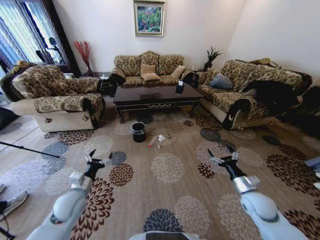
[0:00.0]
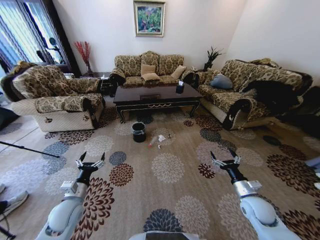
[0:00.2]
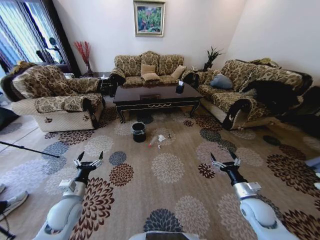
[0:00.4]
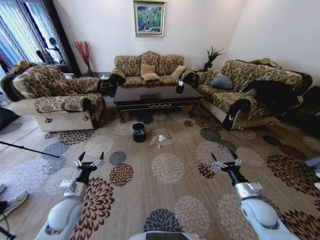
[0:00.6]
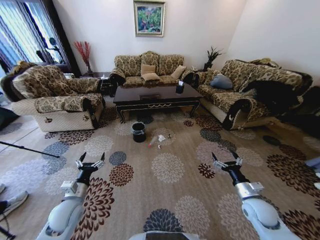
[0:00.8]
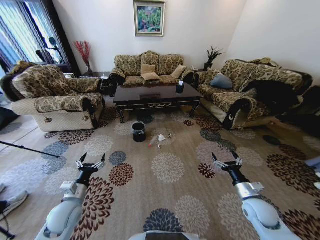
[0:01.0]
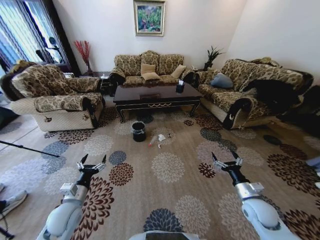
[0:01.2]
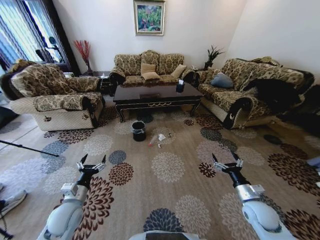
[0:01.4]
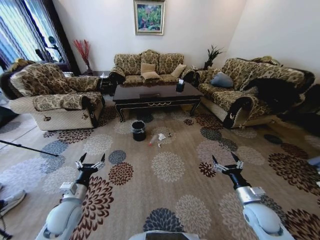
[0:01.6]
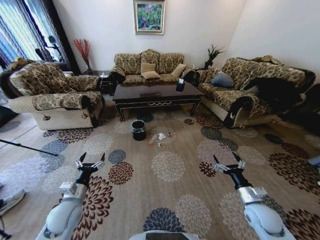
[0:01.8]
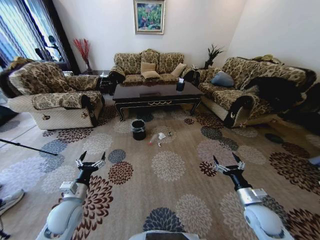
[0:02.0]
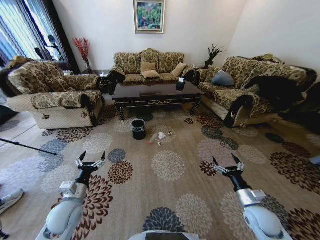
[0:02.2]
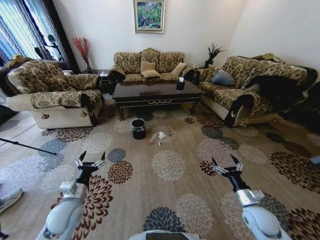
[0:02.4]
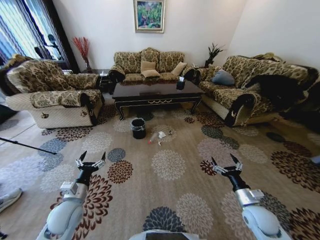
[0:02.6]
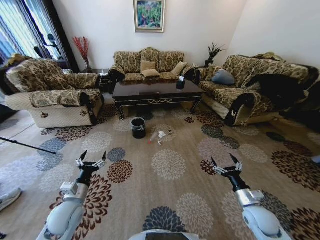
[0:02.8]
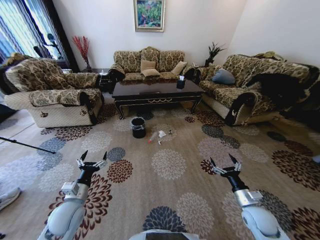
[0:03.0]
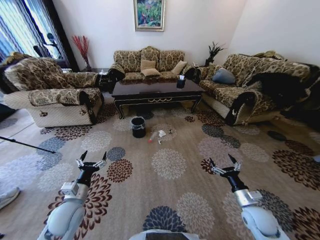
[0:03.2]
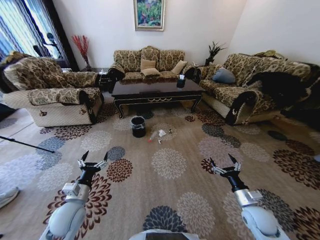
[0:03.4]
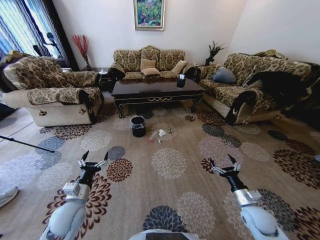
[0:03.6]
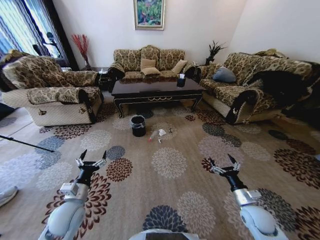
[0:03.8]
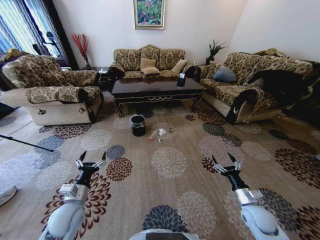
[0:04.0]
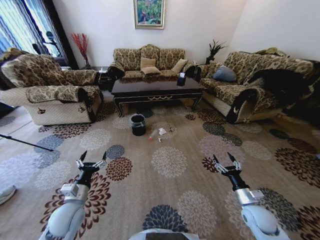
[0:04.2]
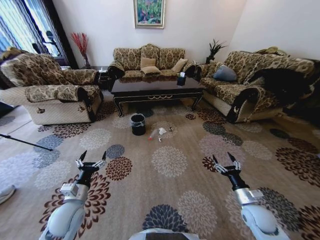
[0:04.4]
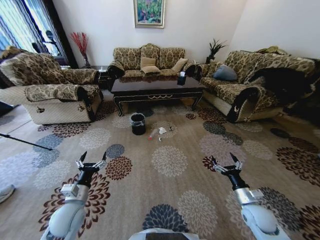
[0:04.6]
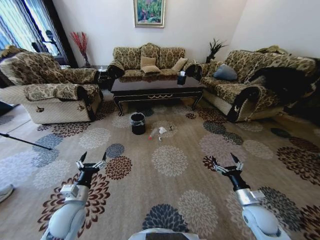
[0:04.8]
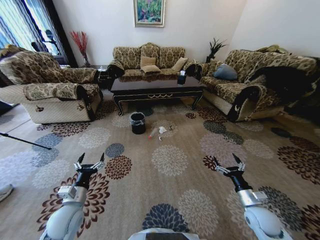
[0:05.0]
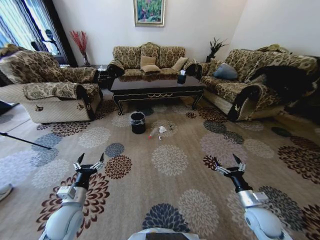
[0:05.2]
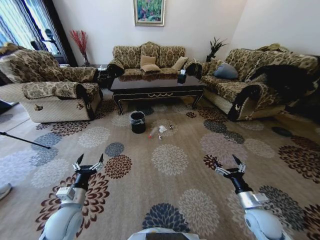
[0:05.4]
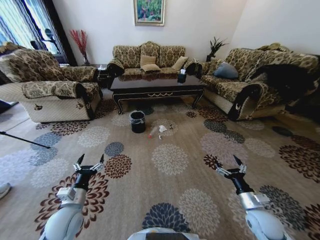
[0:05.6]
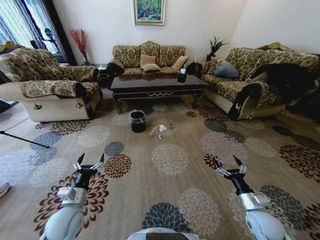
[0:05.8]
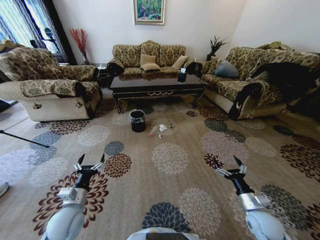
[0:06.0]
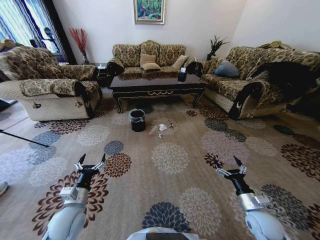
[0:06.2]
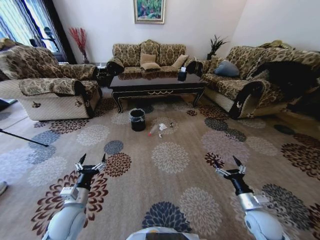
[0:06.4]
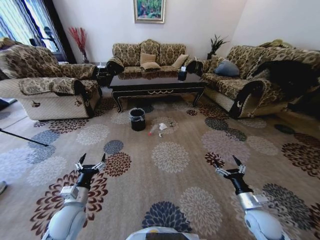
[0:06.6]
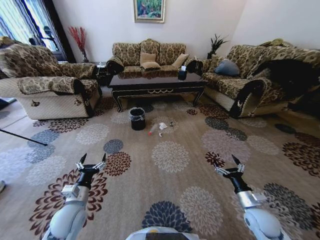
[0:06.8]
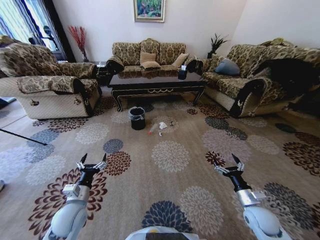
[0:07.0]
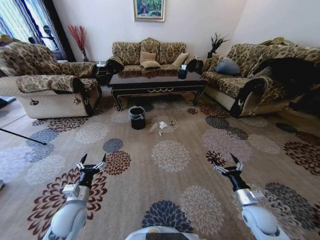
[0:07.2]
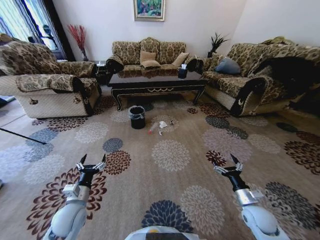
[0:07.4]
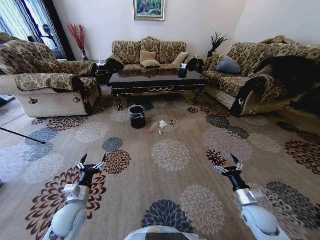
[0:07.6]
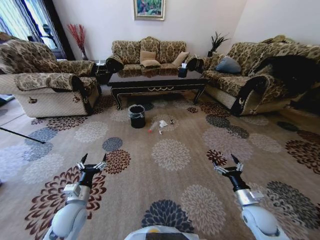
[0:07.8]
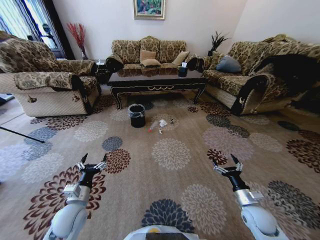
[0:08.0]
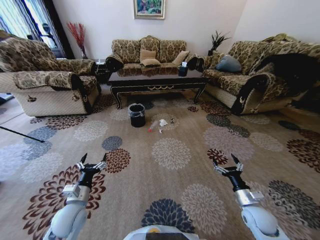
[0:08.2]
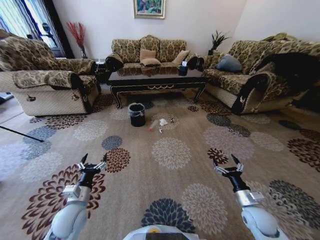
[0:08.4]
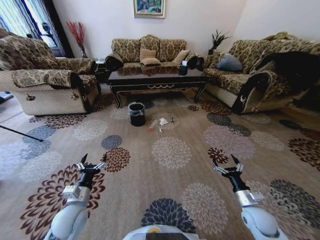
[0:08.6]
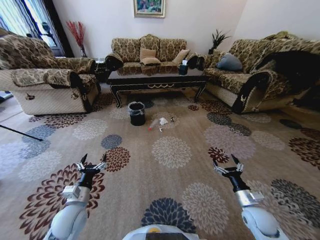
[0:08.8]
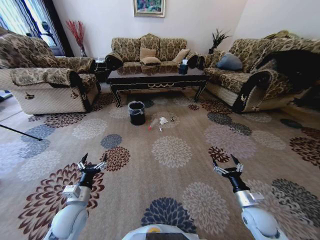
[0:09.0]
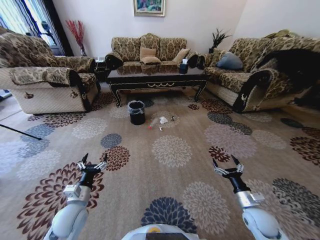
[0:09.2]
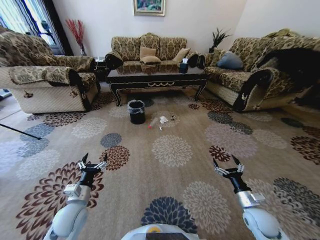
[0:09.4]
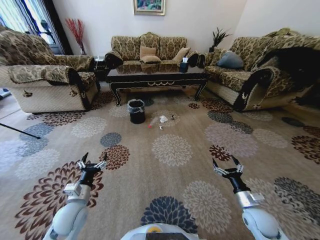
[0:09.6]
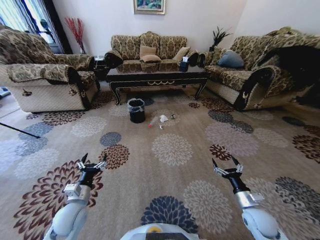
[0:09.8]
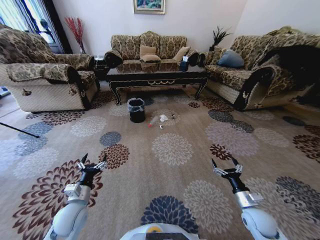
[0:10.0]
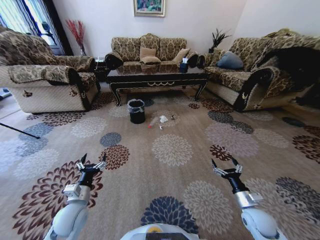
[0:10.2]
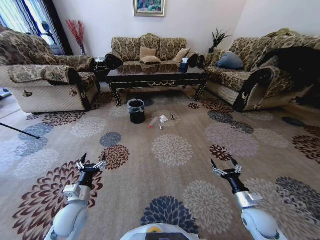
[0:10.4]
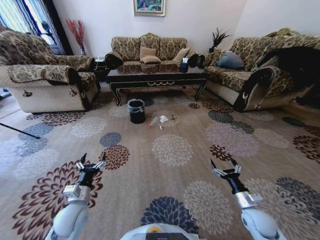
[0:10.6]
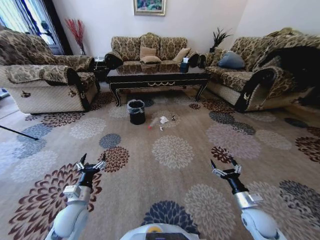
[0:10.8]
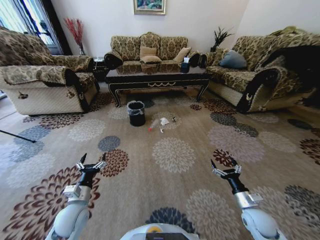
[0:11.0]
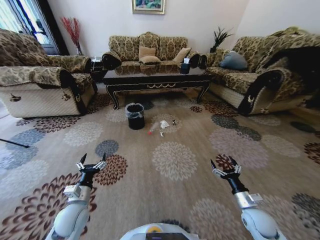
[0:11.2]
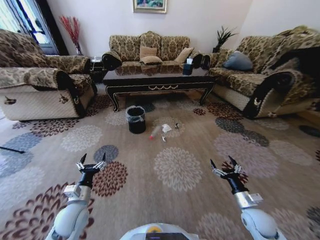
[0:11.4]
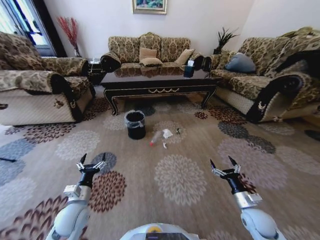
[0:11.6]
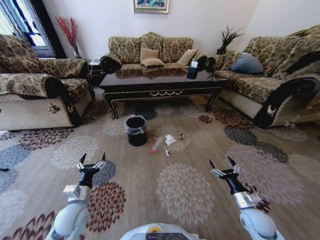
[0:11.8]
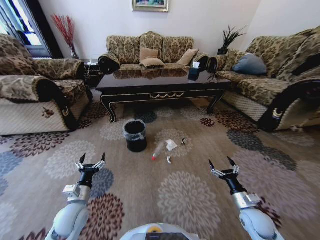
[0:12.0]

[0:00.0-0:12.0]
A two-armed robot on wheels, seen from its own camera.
Task of the whole recording: Move to the front of the table and pick up the trash from the floor, then place it into the trash bin.
0:09.0 to 0:10.4: Both grippers stay about where they are.

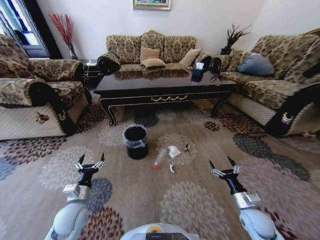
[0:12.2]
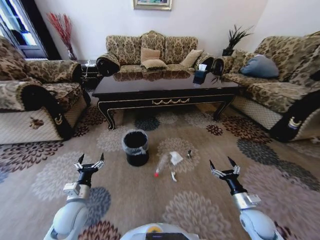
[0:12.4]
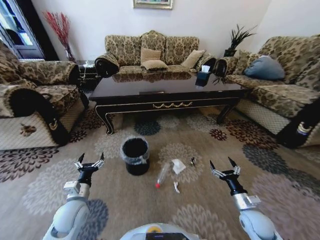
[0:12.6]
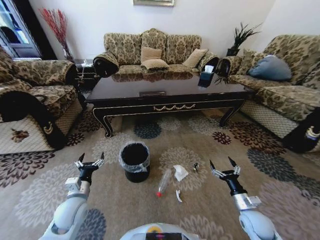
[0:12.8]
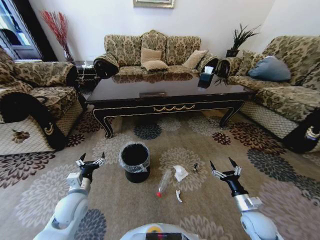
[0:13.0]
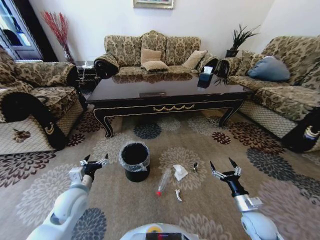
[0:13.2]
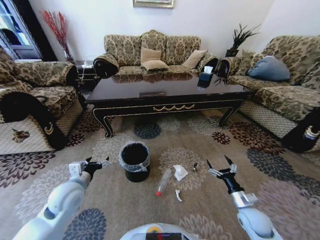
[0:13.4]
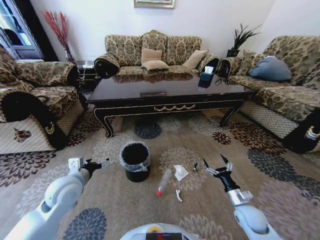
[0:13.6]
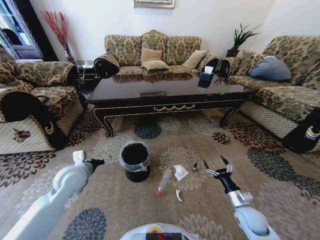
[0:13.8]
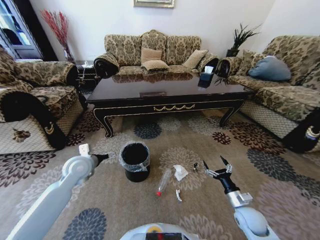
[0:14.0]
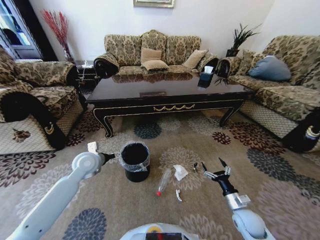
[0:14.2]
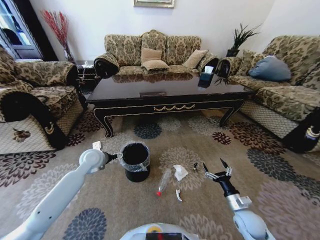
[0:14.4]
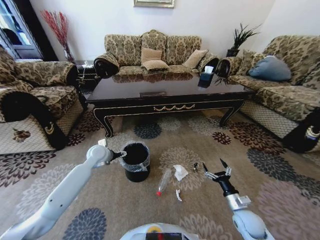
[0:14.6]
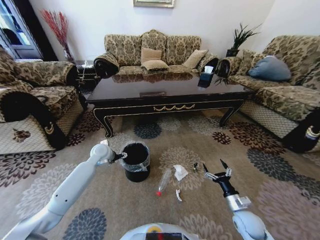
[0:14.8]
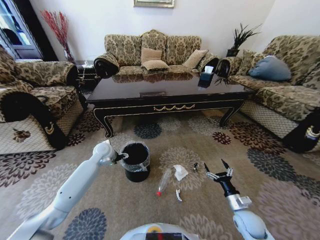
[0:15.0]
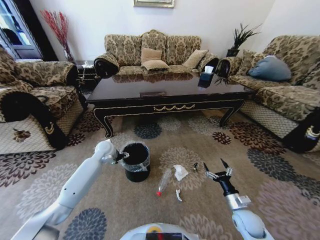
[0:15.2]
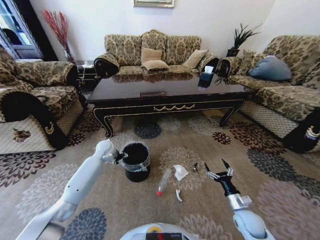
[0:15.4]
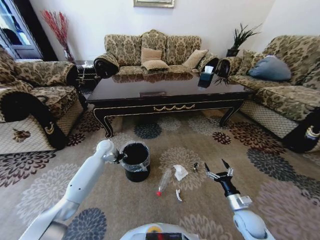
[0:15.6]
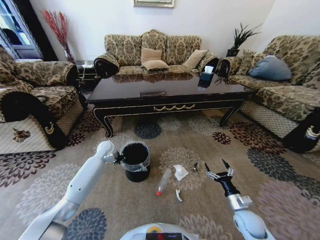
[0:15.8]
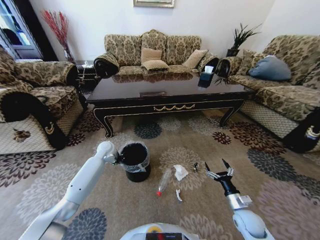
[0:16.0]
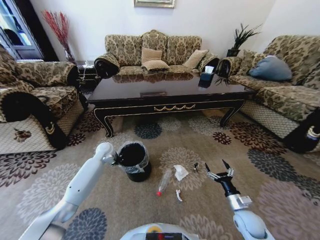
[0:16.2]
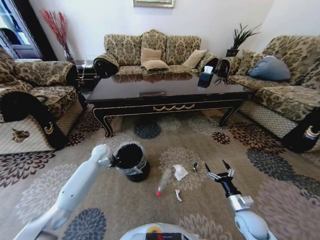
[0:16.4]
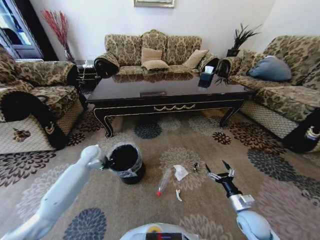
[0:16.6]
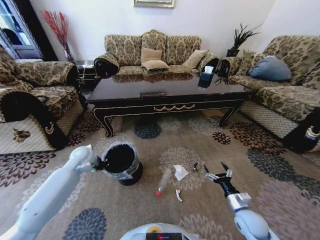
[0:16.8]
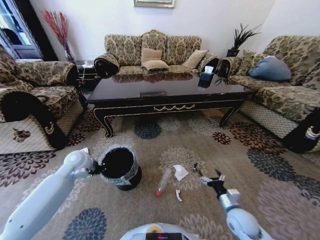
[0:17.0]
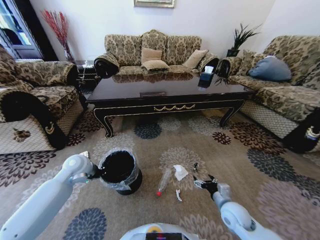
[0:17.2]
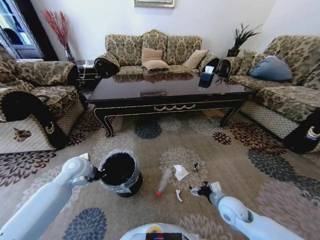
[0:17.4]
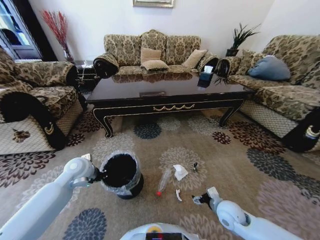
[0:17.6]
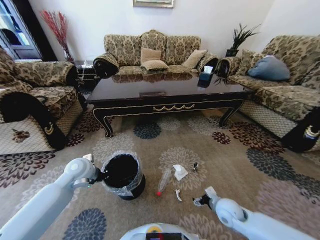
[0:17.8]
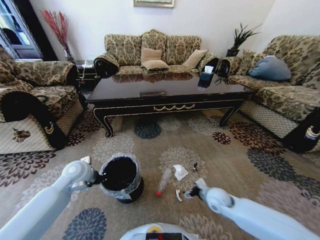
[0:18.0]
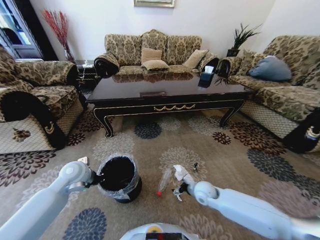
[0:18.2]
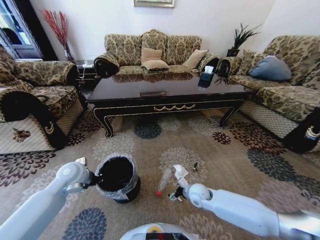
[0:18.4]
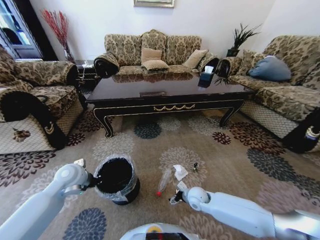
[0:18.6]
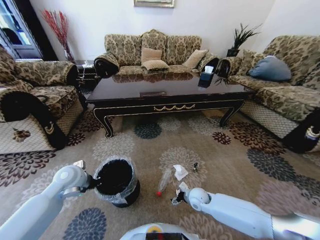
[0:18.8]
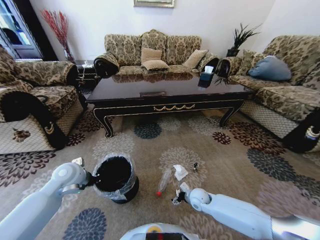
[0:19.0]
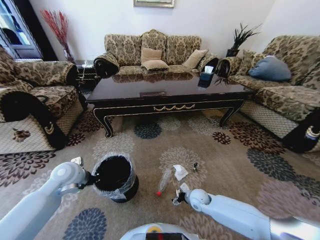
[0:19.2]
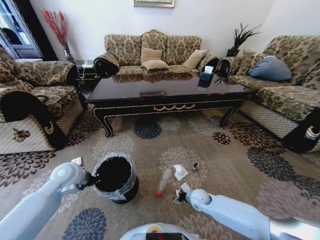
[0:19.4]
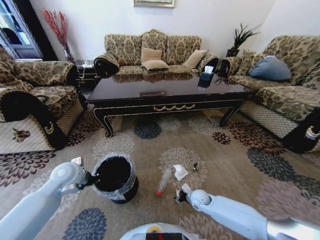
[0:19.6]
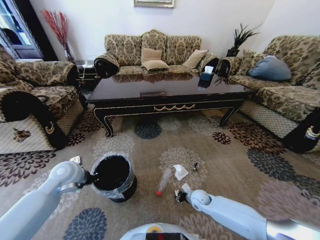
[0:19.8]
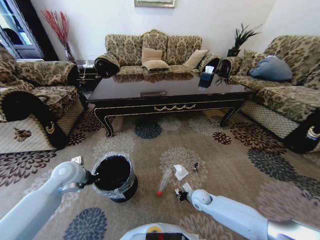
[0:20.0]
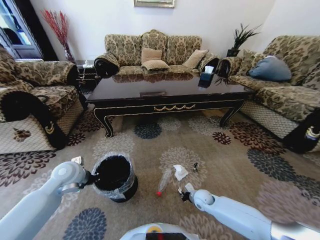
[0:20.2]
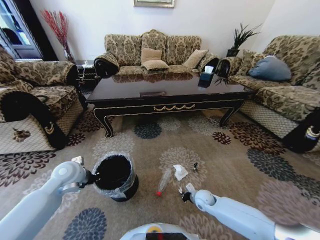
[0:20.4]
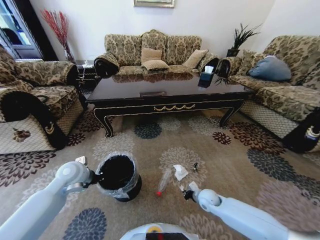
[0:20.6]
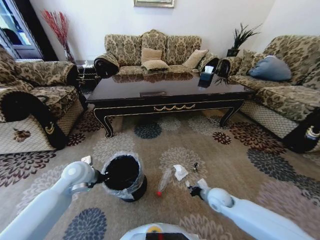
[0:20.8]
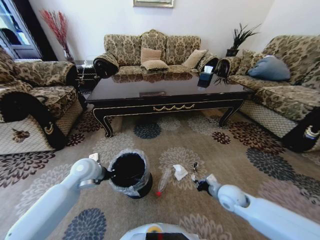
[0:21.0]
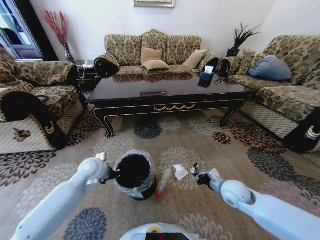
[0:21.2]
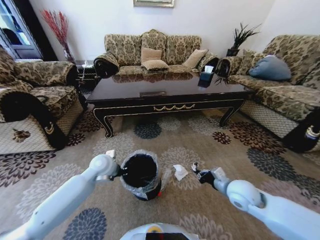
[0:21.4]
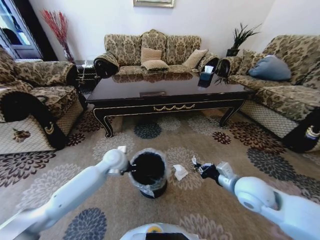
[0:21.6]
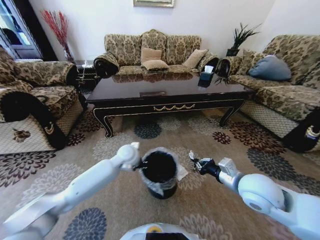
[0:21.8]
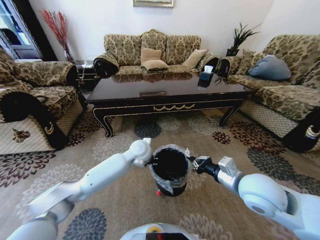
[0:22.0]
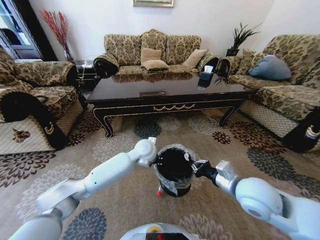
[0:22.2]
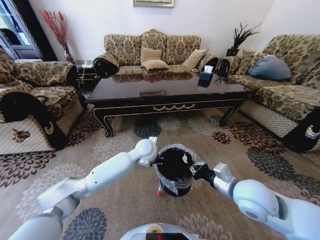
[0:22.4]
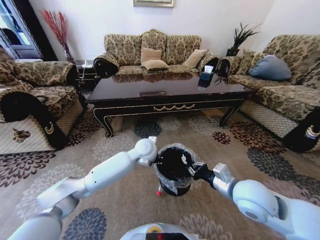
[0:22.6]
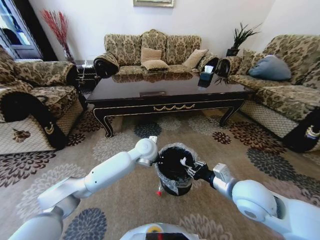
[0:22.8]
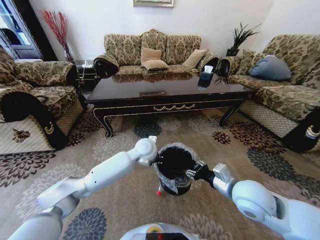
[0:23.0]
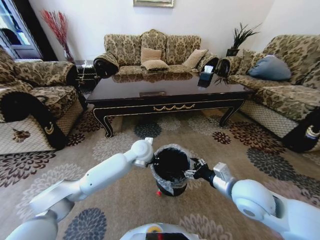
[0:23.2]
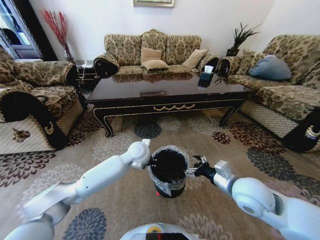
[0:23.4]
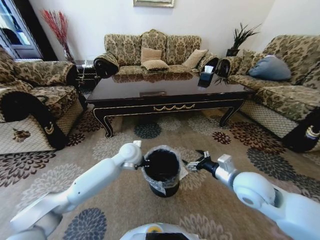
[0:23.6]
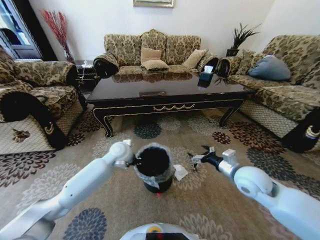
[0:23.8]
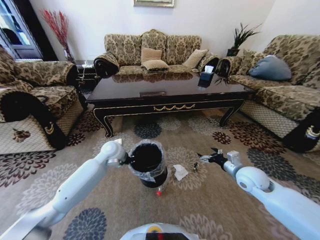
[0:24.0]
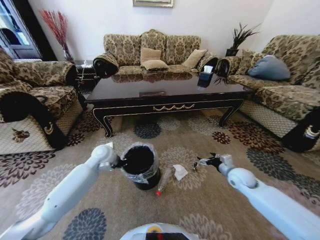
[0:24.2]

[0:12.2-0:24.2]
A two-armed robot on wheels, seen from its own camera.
Task of the whole recording: Move to the front of the table and pick up the trash from the floor, then place it into the trash bin.
0:12.2 to 0:13.8: The left gripper shifts roughly 15 cm upward and forward.
0:13.8 to 0:15.2: The left gripper moves forward, about 15 cm.
0:15.2 to 0:16.6: The left gripper travels to the left by about 5 cm, and closes.
0:16.6 to 0:18.2: The right gripper travels to the left and forward by about 20 cm. The left gripper travels backward by some 10 cm.
0:18.2 to 0:19.8: The right gripper travels downward by some 10 cm, and closes its fingers.
0:19.8 to 0:21.2: The right gripper moves upward and to the right, roughly 20 cm, and closes; the left gripper shifts about 10 cm to the right.
0:21.2 to 0:22.6: The left gripper is displaced to the right by some 20 cm. Meanwhile the right gripper moves upward and backward, some 15 cm.
0:22.6 to 0:24.2: The left gripper heads to the left, covering approximately 20 cm; the right gripper heads downward, to the right and forward, covering roughly 20 cm, and opens its fingers.
